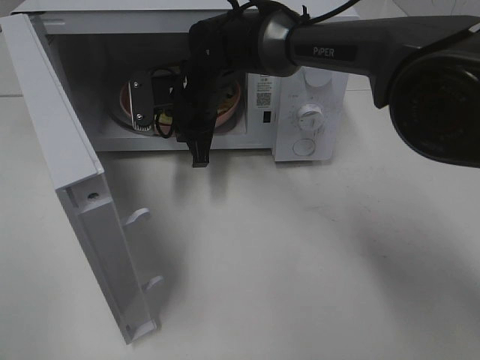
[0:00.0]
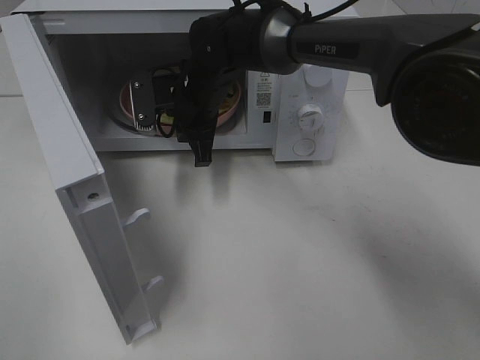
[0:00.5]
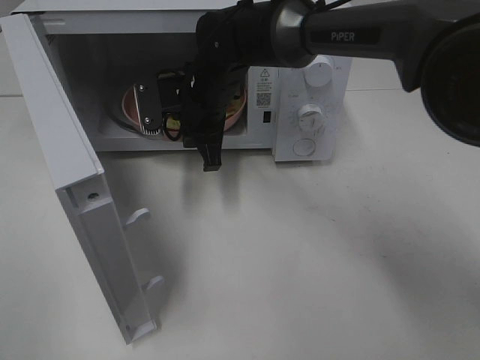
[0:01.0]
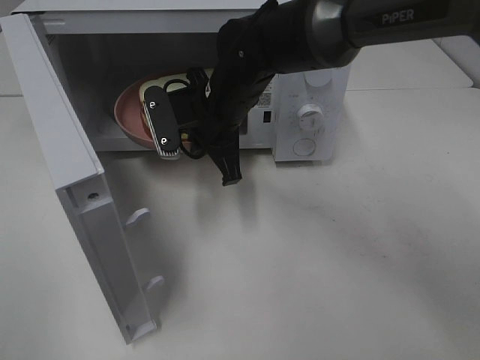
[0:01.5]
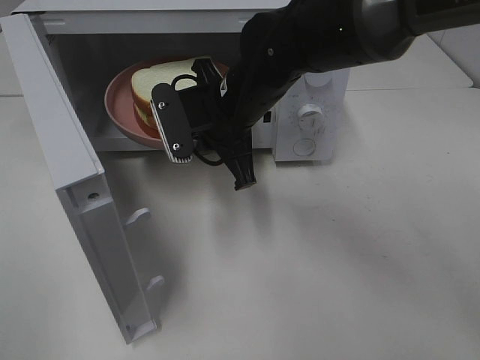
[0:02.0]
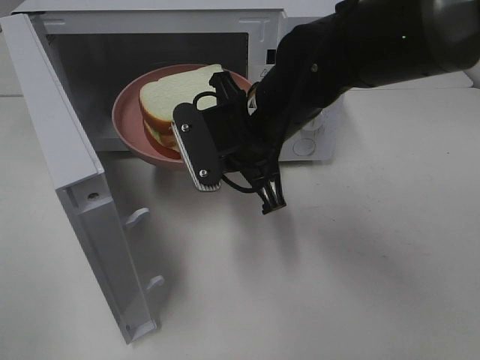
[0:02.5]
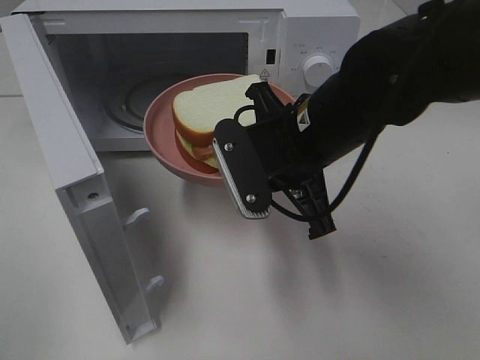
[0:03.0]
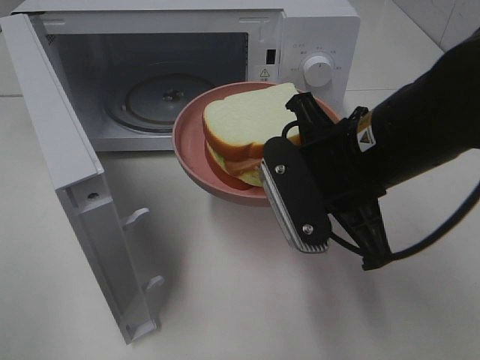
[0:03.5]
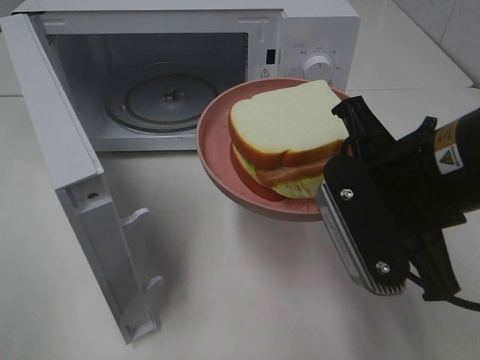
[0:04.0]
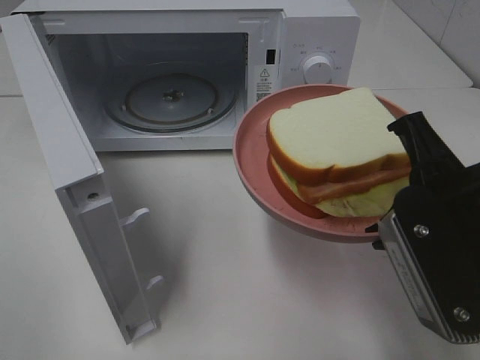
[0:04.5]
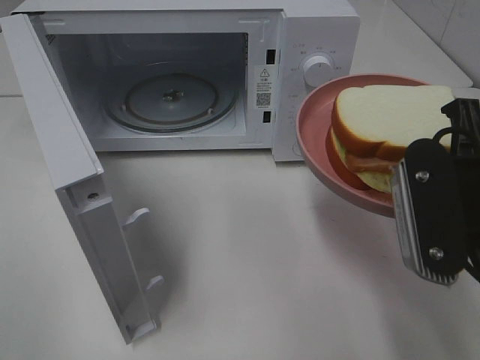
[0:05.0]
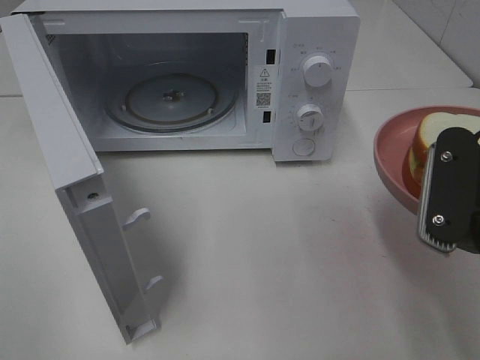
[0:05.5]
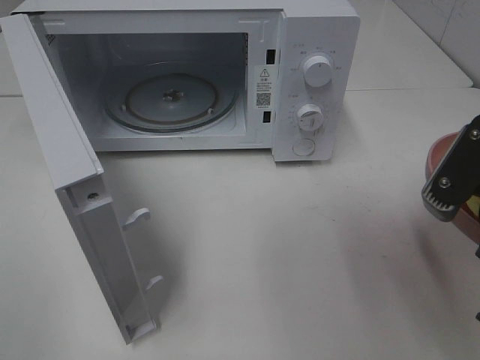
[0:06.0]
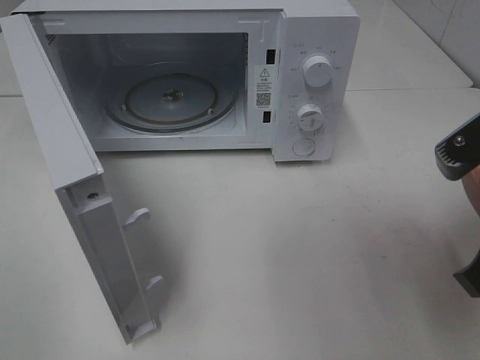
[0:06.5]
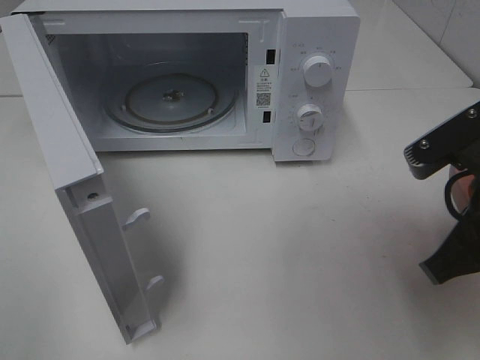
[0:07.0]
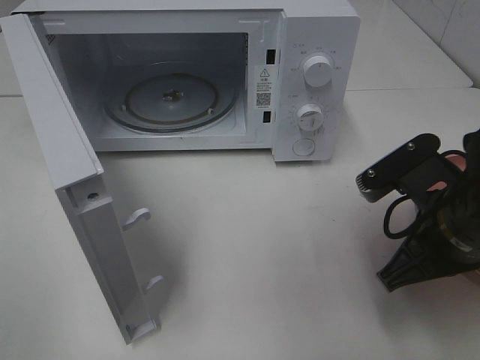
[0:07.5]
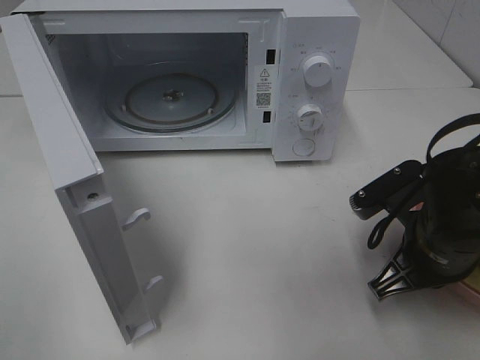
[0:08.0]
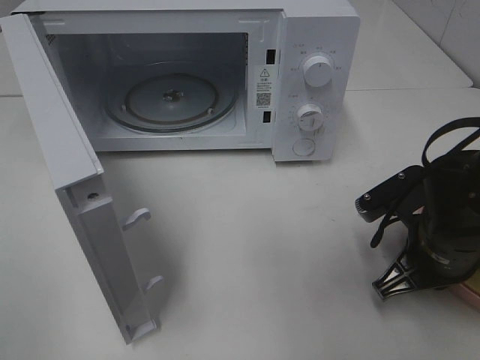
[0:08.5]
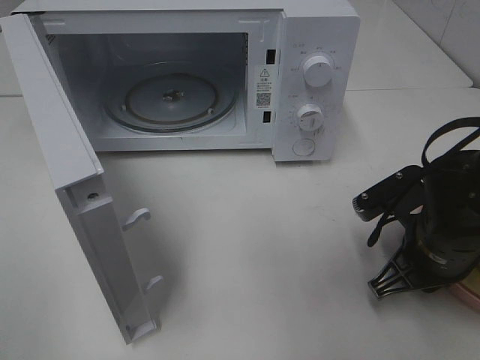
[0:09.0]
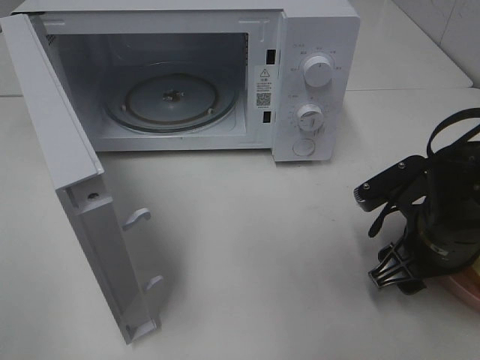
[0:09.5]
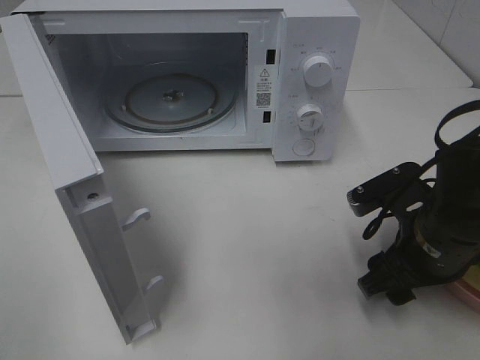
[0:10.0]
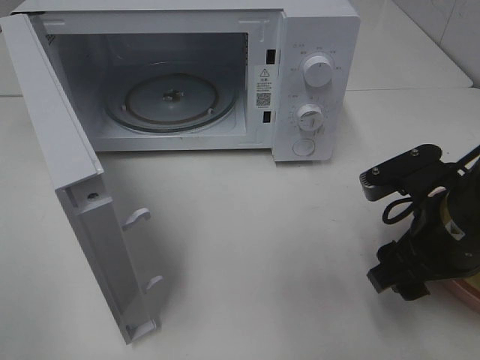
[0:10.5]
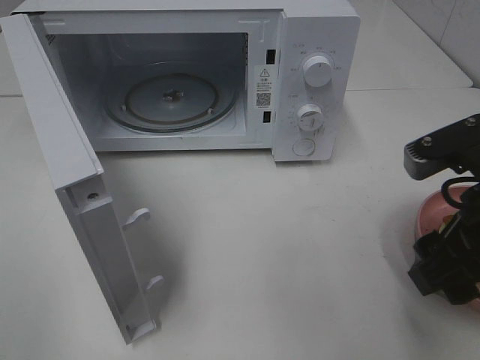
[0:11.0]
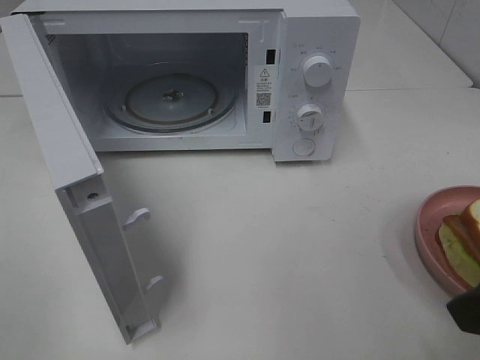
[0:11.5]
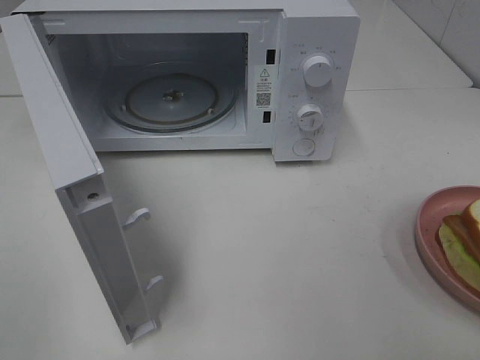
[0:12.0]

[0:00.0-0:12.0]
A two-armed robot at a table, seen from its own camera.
Task of the whole recording: Heat Sandwich.
Step, 0:00.5 to 0:10.5: Right hand: place the plate on the table.
0:00.0 to 0:02.0: The right gripper shifts some 10 cm backward and to the right.
0:02.0 to 0:04.0: The right gripper travels backward and to the right by roughly 20 cm.
0:04.0 to 0:06.0: The right gripper heads to the right, covering some 5 cm.
0:06.0 to 0:08.0: The right gripper goes roughly 15 cm downward and forward.
0:08.0 to 0:10.0: The right gripper opens up.
0:10.0 to 0:12.0: The right gripper goes roughly 20 cm upward and backward.

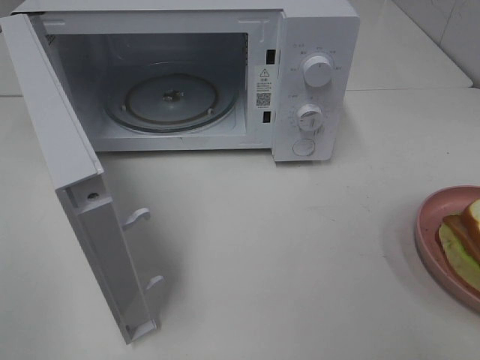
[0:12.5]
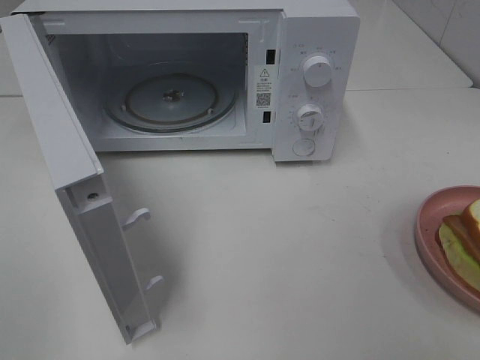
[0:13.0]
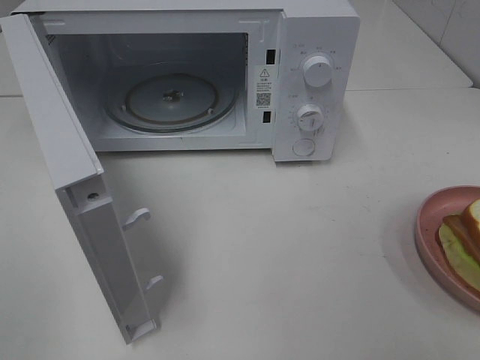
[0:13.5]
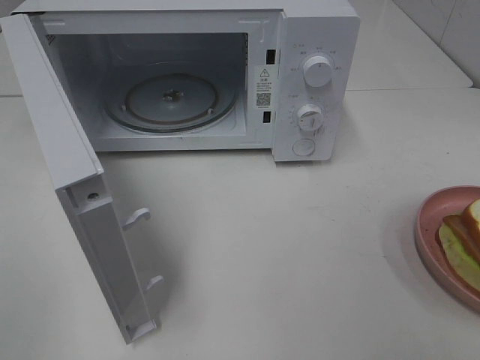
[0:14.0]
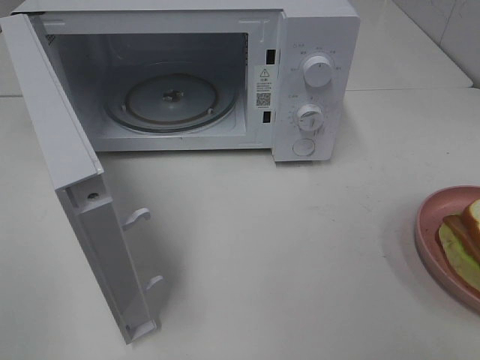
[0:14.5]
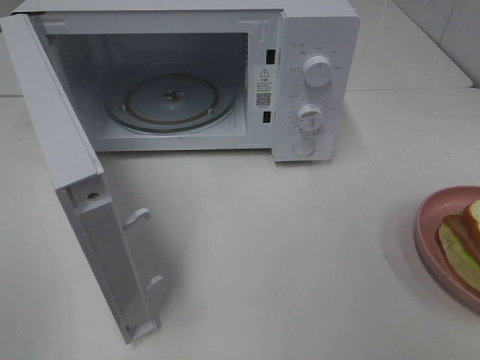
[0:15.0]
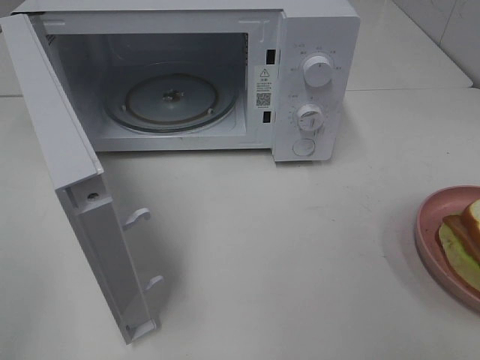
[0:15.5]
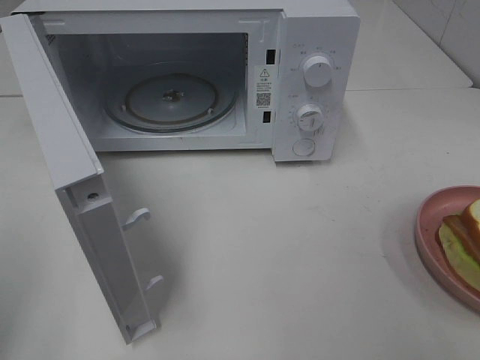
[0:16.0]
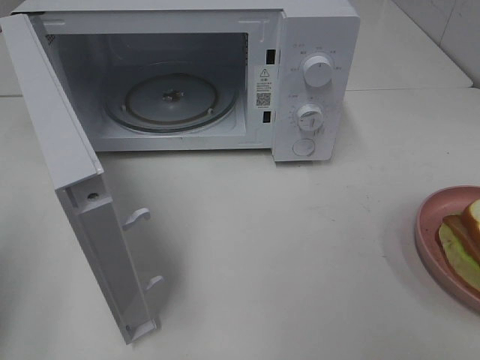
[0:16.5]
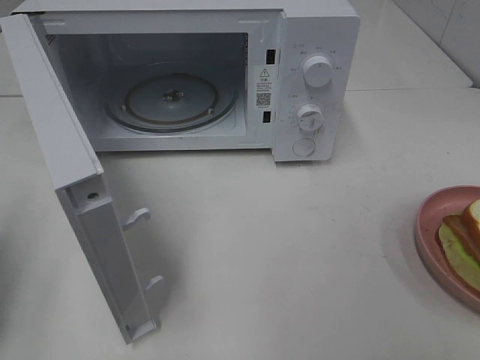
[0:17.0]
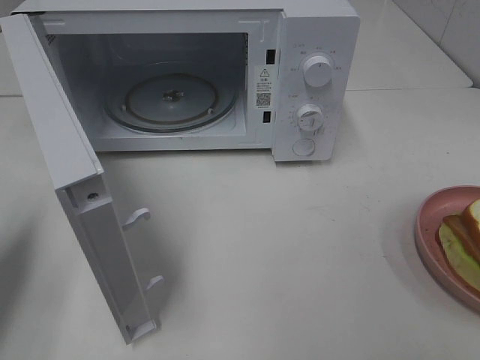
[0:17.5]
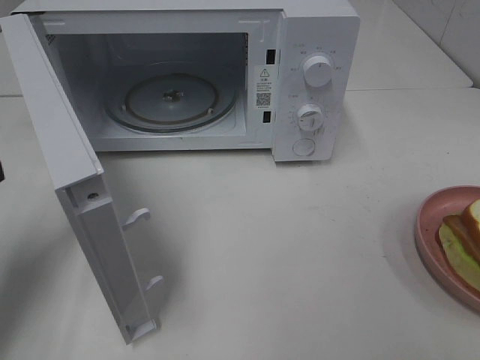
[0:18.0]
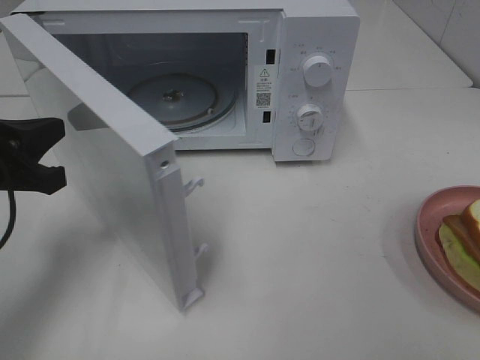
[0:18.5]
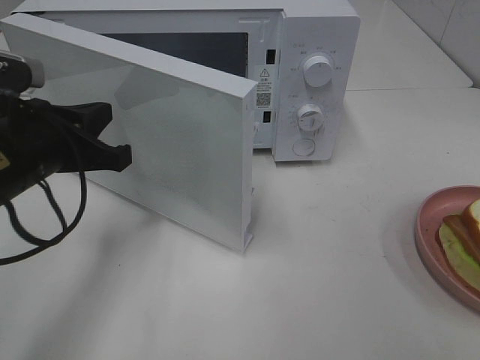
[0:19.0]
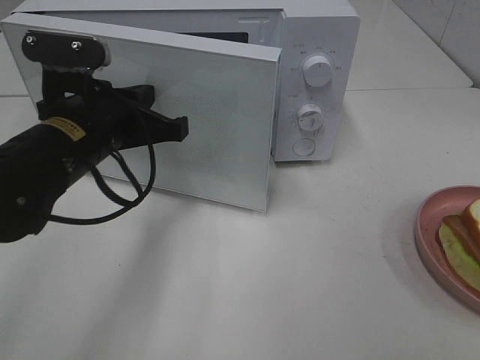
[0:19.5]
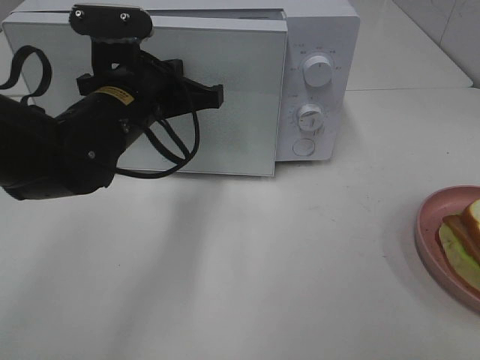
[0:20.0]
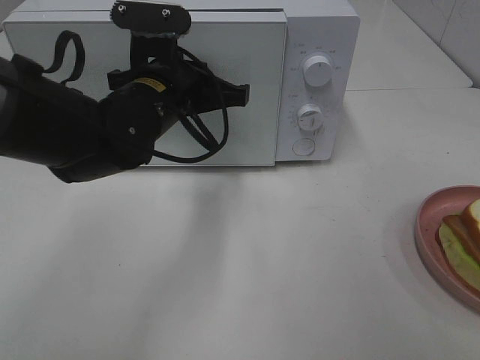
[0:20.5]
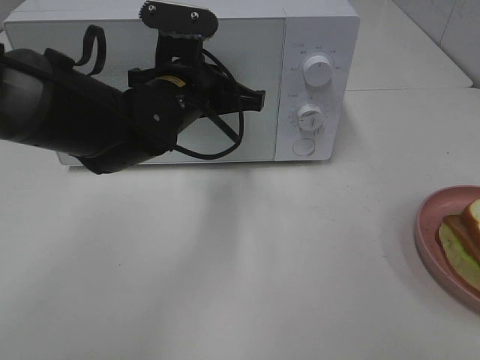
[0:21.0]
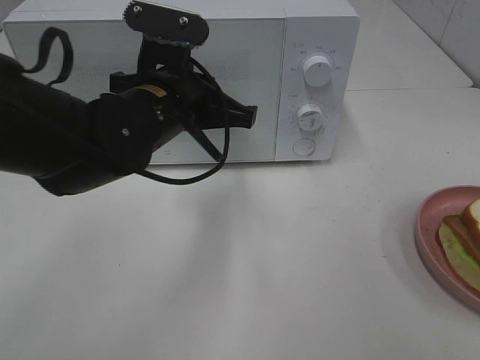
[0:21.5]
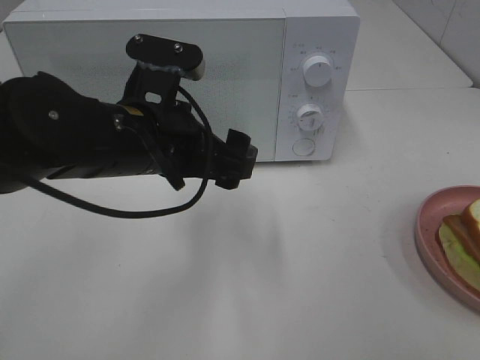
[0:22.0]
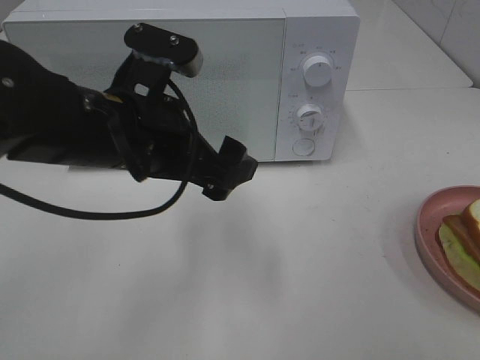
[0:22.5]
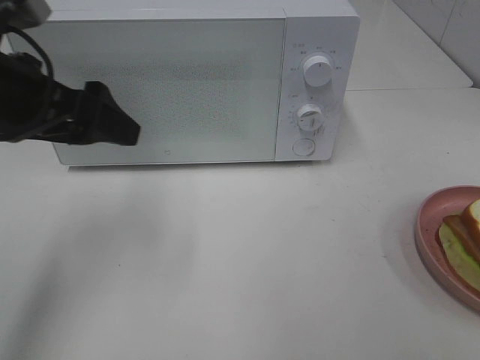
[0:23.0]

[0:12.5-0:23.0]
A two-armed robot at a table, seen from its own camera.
Task of the whole recording: Heat Sandwich.
Step, 0:12.5 to 0:22.0: Left hand: close the microwave door.
0:16.5 to 0:19.0: The left gripper shifts some 20 cm to the right, forward and downward.
0:19.0 to 0:21.0: The left gripper heads to the right and forward, covering some 15 cm.
0:21.0 to 0:23.0: The left gripper heads to the left, upward and backward, covering approximately 20 cm, and opens its fingers.

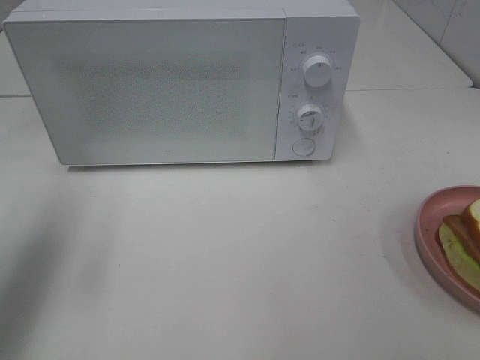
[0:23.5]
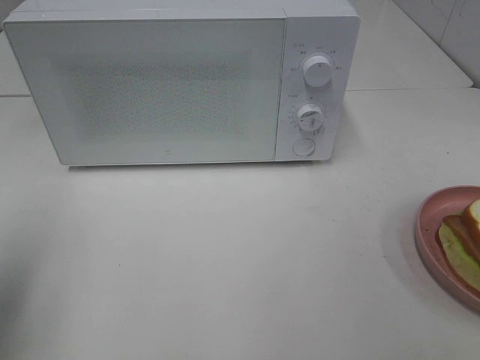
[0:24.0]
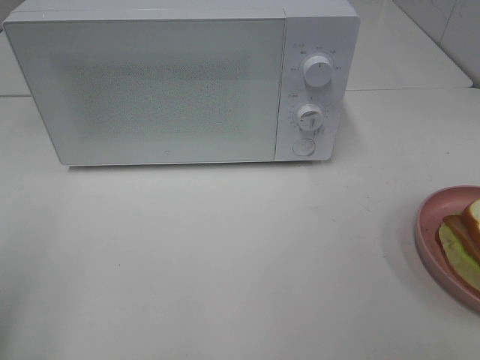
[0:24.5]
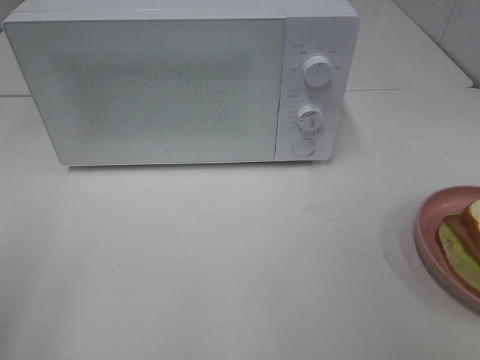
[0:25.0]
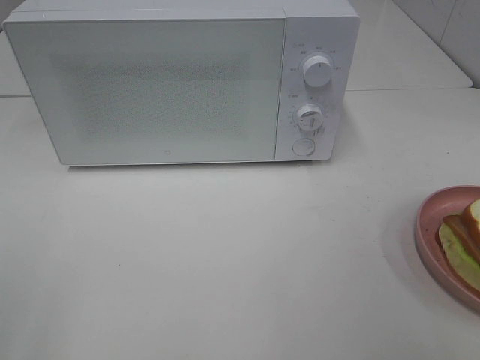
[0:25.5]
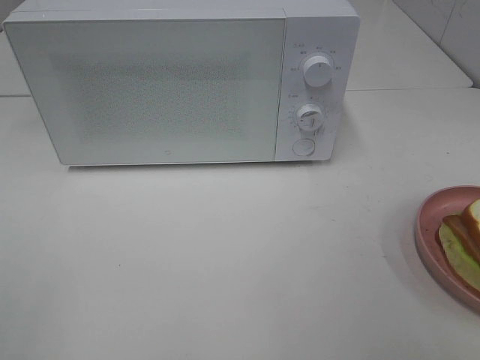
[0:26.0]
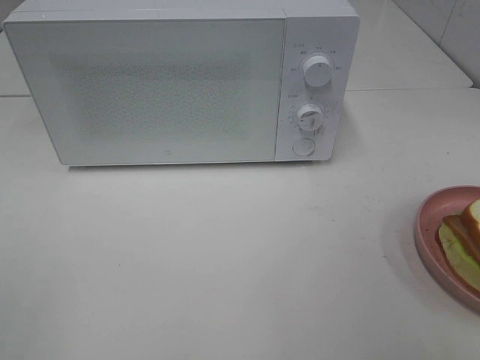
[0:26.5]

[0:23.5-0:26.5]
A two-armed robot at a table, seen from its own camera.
Task of the whole recording: Heat Sandwich.
0:23.5 to 0:25.0: The left gripper travels backward by about 15 cm.
